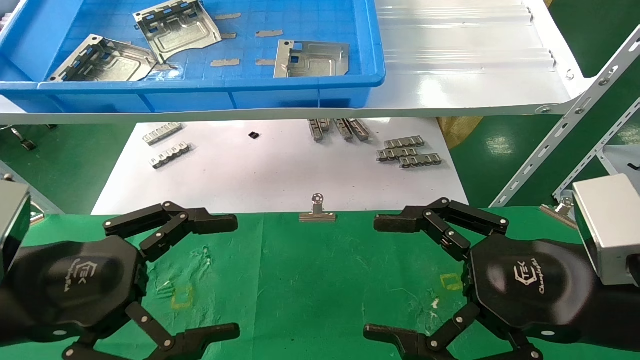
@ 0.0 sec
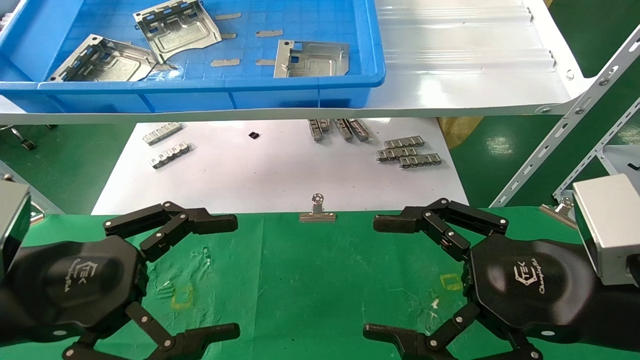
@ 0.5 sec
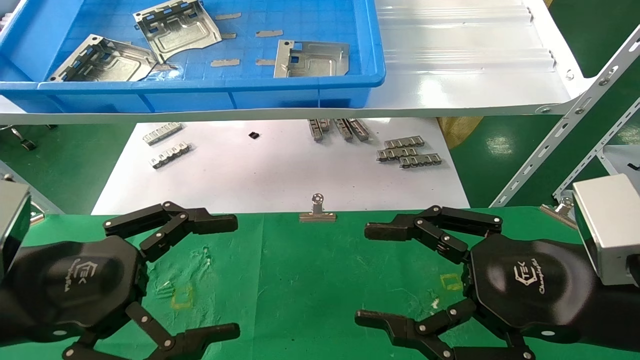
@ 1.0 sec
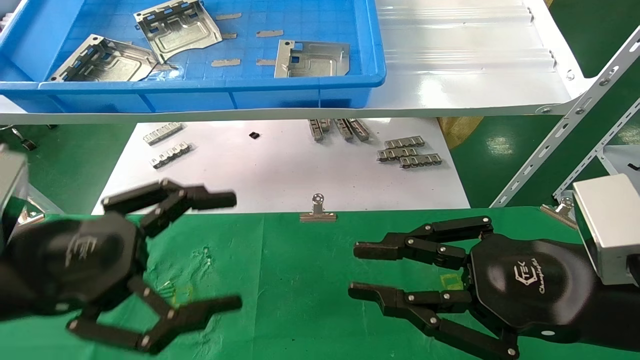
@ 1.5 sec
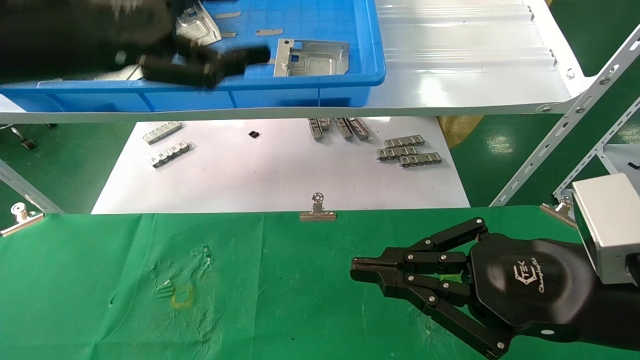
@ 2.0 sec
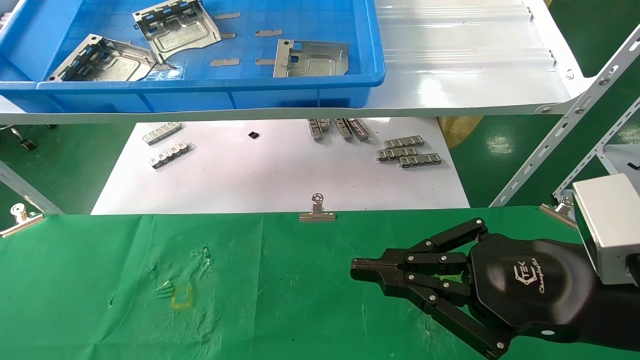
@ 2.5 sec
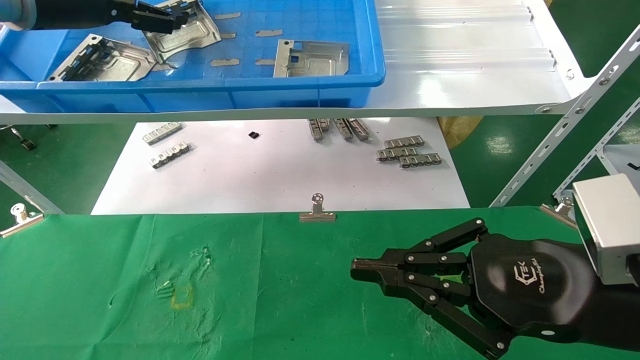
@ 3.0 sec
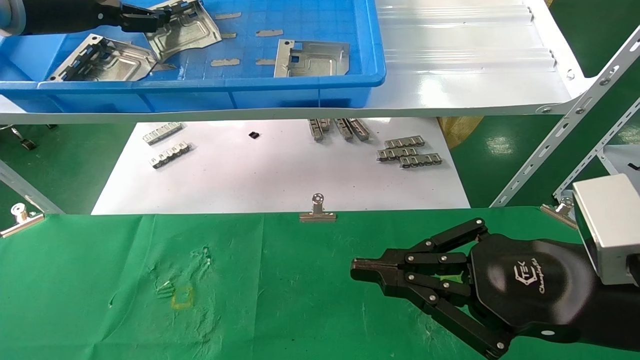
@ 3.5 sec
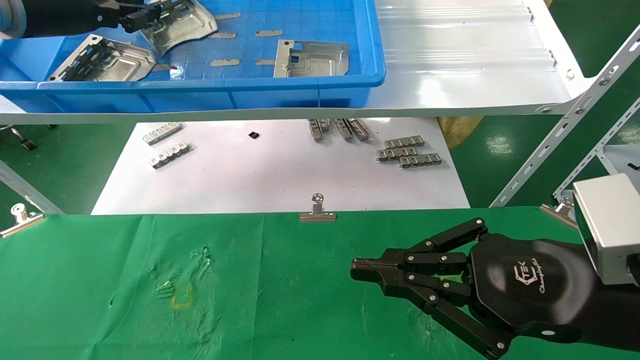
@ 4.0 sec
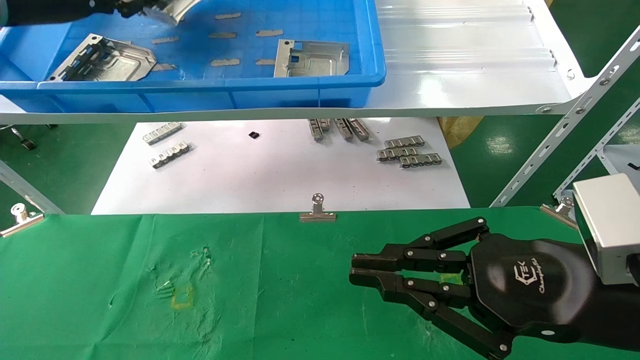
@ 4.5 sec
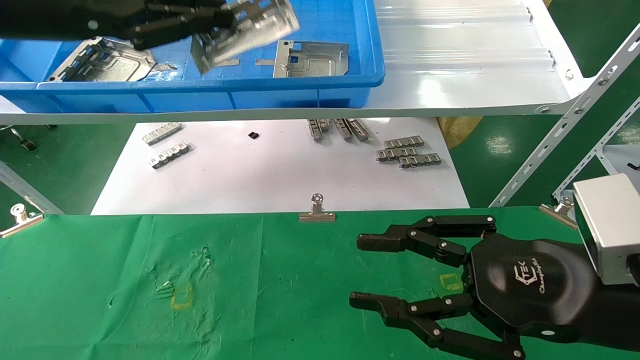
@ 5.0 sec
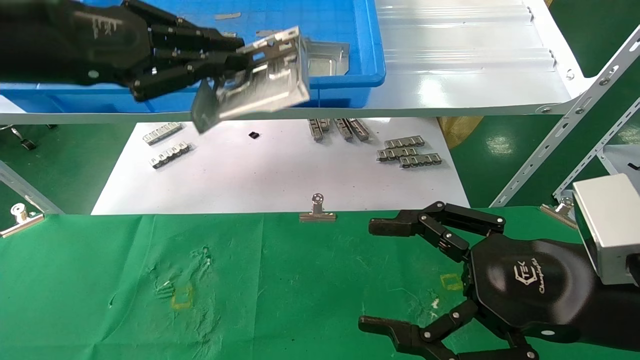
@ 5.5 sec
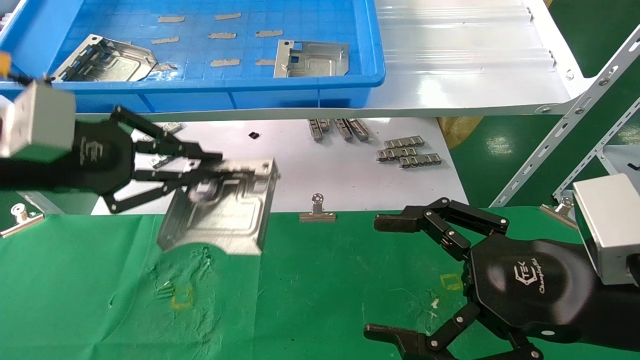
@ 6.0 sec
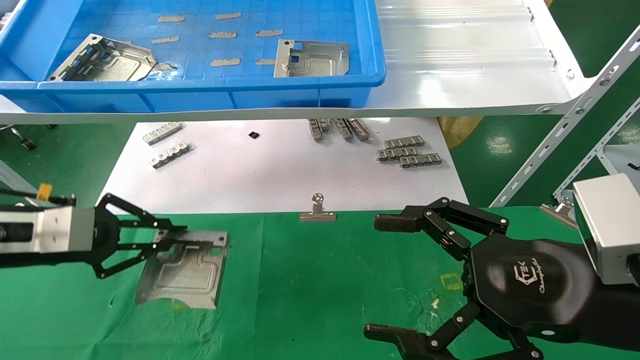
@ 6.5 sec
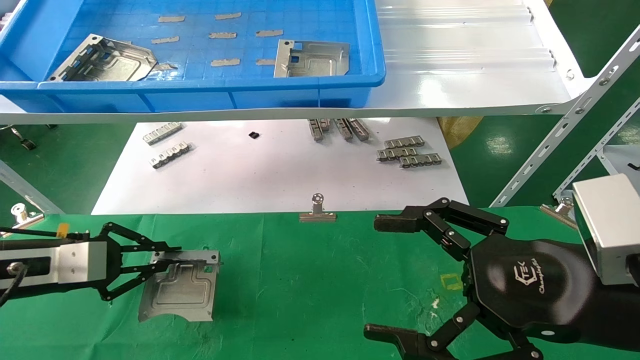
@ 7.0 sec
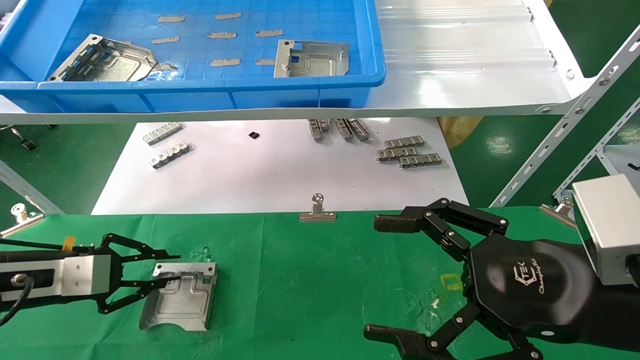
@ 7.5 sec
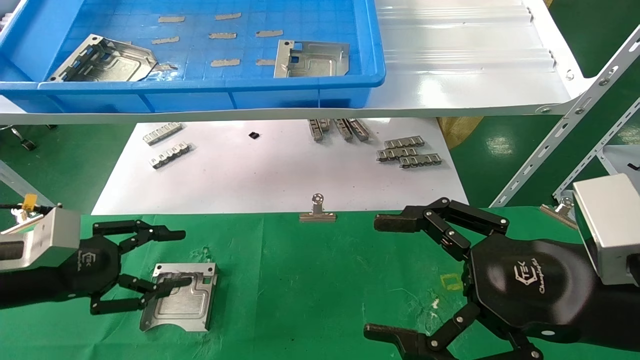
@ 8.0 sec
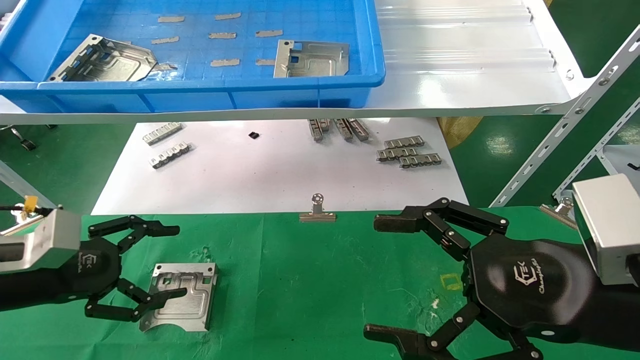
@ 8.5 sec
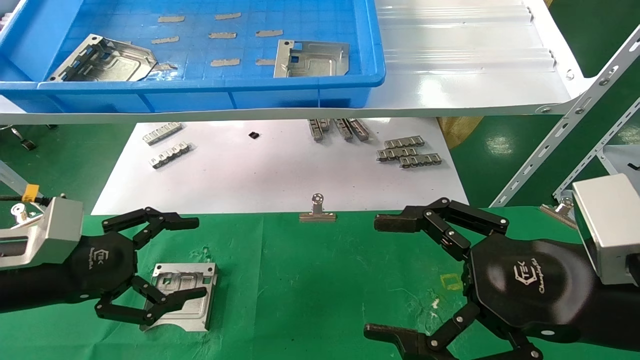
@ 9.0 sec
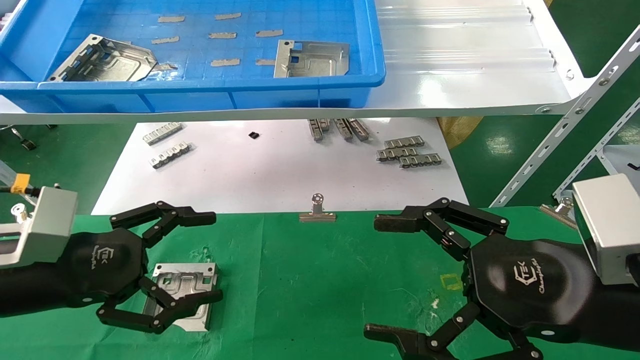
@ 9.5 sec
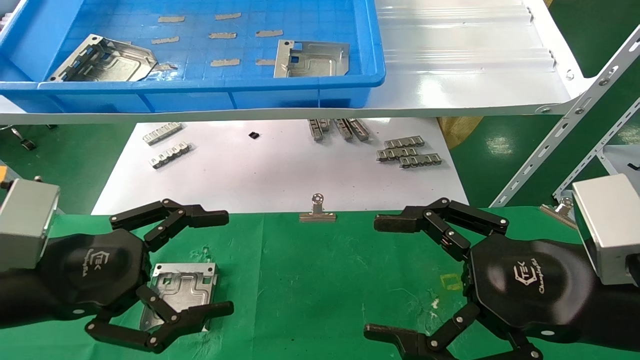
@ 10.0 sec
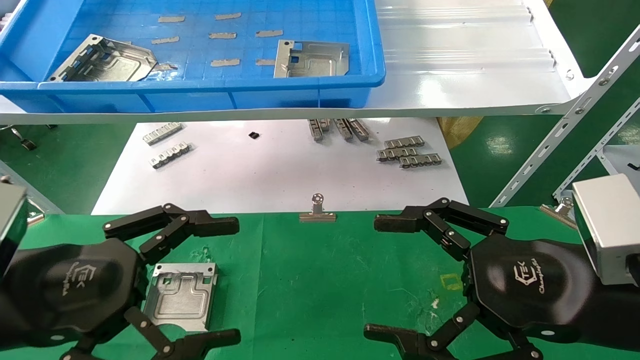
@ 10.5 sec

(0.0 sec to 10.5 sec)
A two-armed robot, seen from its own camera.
Task of the whole recording: use the mechanical arm to pick up the parts and place them on the table.
Step, 2.0 sec - 4.0 sec: Pick up the hard drive bracket from the feeding area.
Step, 4.5 sec - 7.5 sec: Place the hard drive bracket into the box.
0.0 sec - 2.0 sec: The right gripper closes. Meanwhile the left gripper travels upward and forward by about 20 cm.
2.0 sec - 4.0 sec: The left gripper moves forward, to the left and upward, about 15 cm, and closes up.
4.0 sec - 6.5 sec: The right gripper opens. Meanwhile the left gripper shifts about 25 cm downward and backward.
6.5 sec - 8.5 sec: The left gripper shifts by about 5 cm, and opens up.
8.5 sec - 10.5 sec: The left gripper shifts approximately 15 cm backward and to the right.

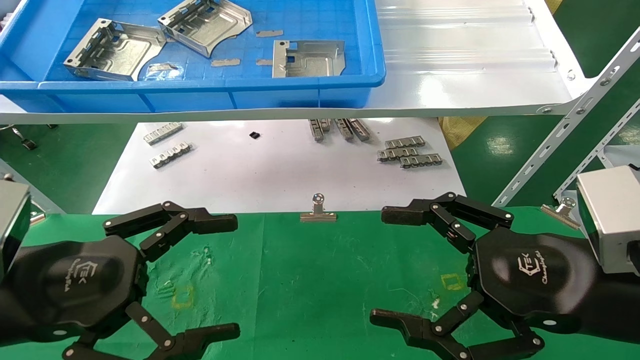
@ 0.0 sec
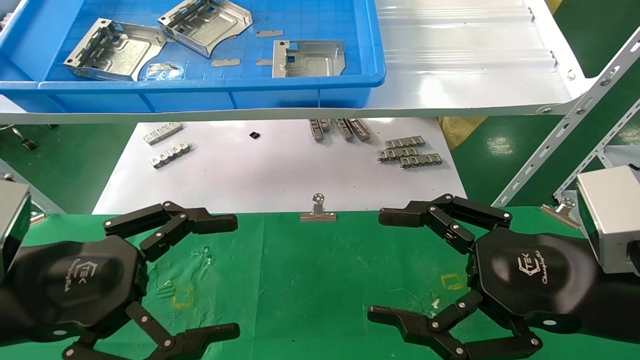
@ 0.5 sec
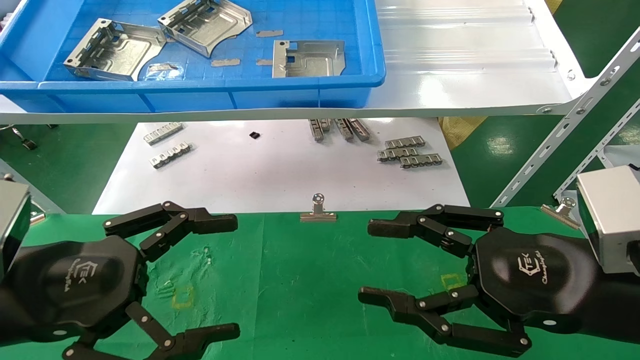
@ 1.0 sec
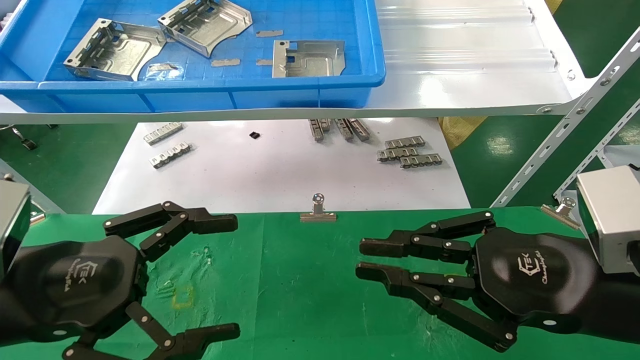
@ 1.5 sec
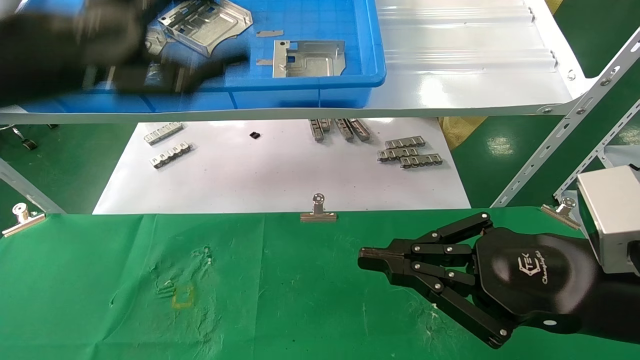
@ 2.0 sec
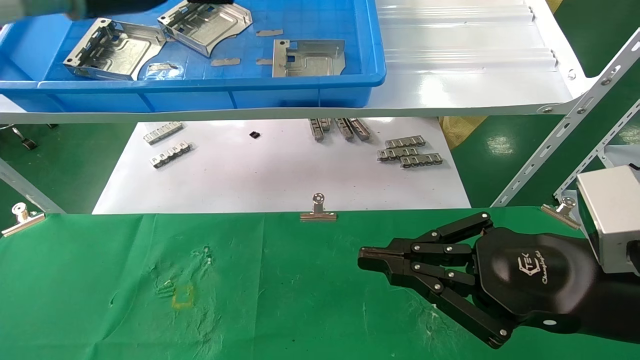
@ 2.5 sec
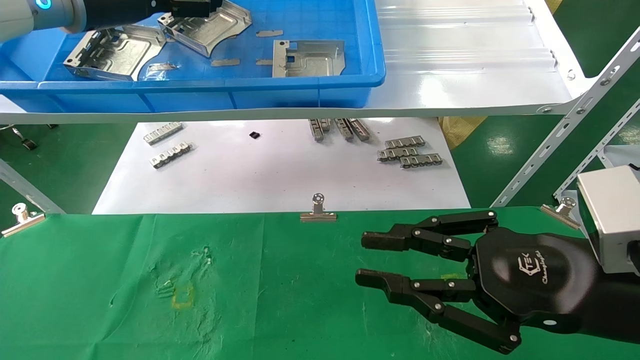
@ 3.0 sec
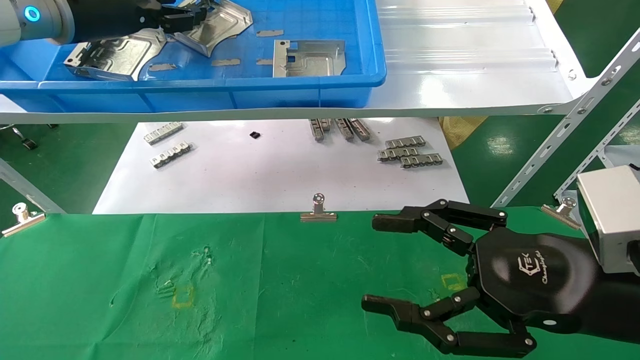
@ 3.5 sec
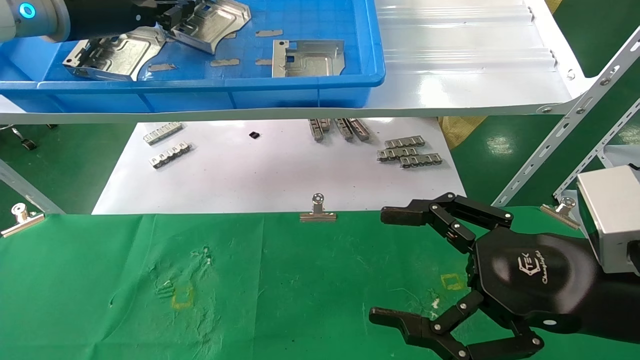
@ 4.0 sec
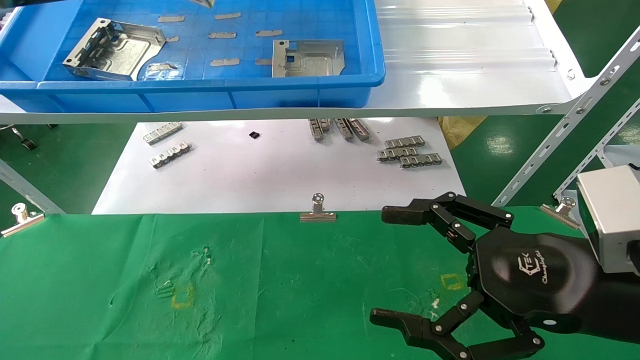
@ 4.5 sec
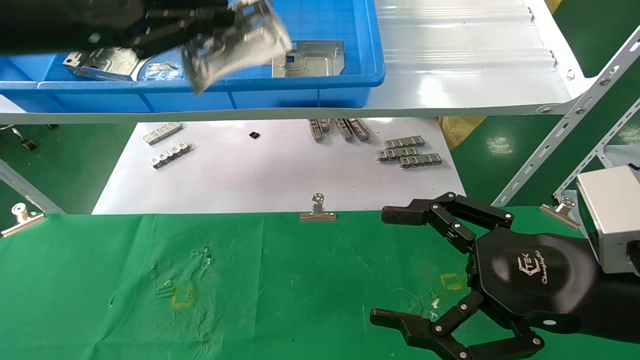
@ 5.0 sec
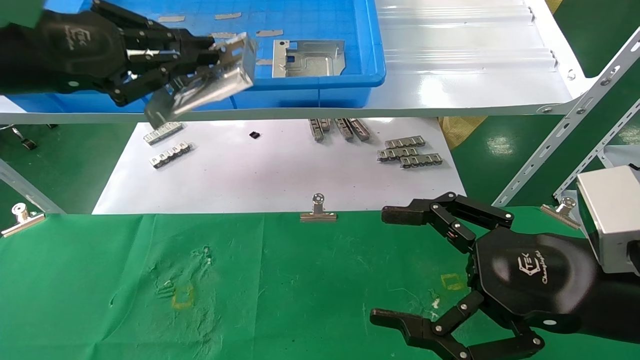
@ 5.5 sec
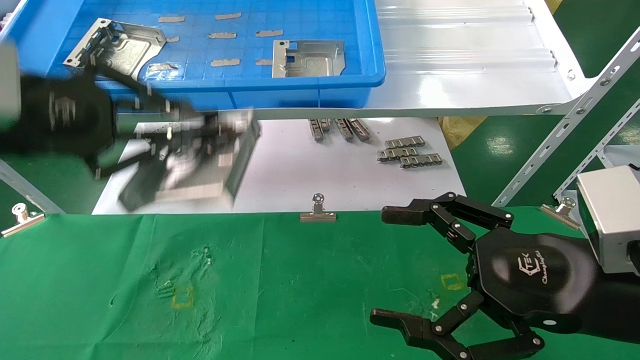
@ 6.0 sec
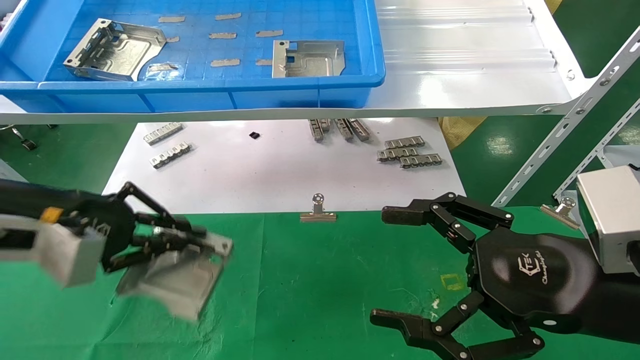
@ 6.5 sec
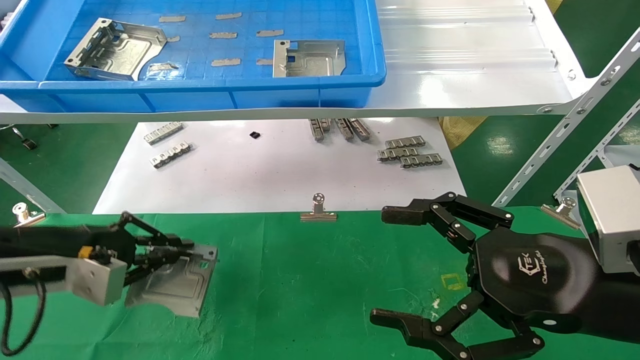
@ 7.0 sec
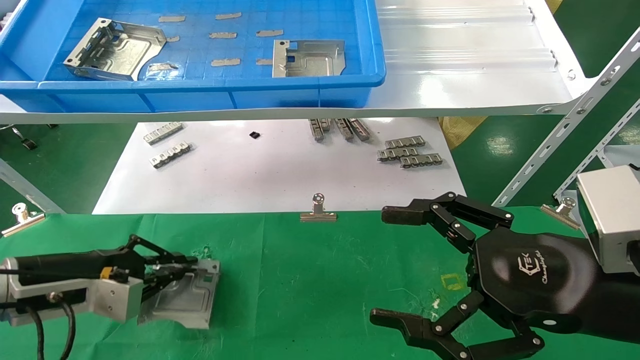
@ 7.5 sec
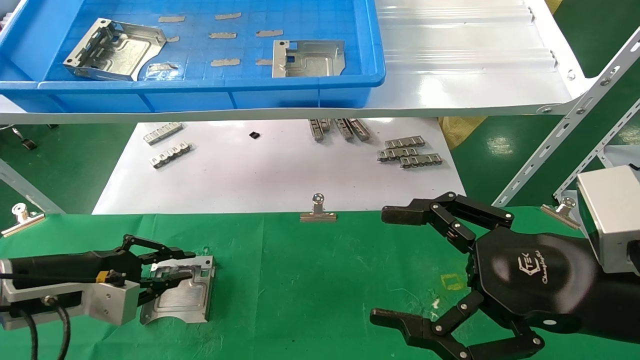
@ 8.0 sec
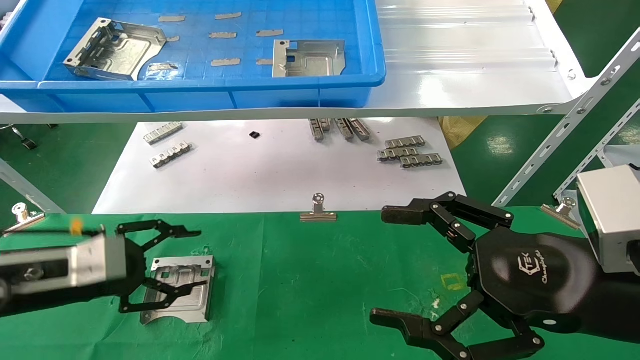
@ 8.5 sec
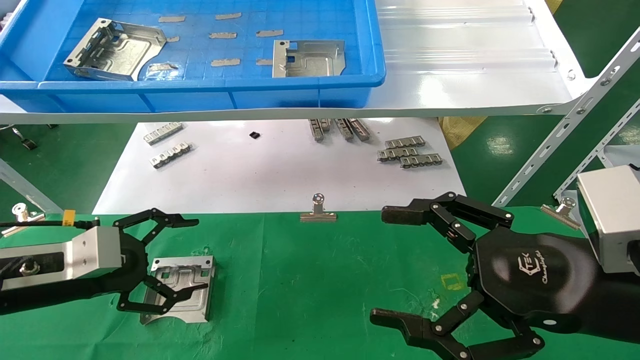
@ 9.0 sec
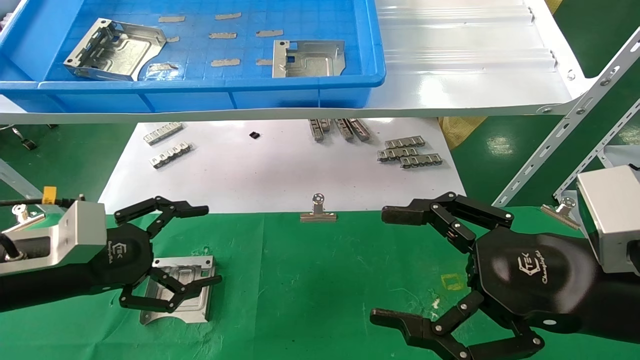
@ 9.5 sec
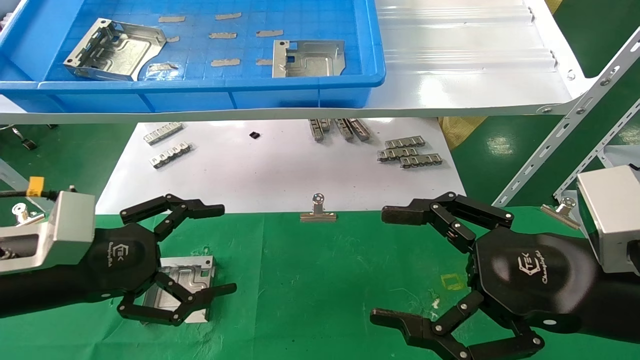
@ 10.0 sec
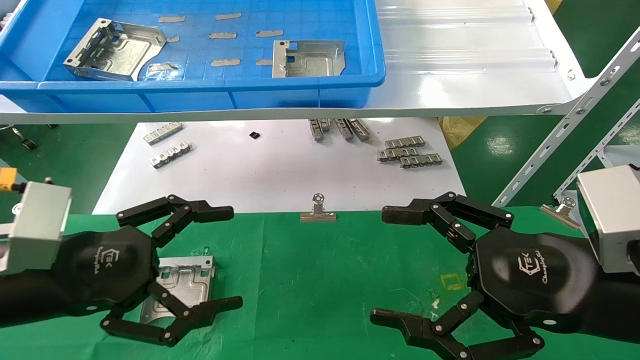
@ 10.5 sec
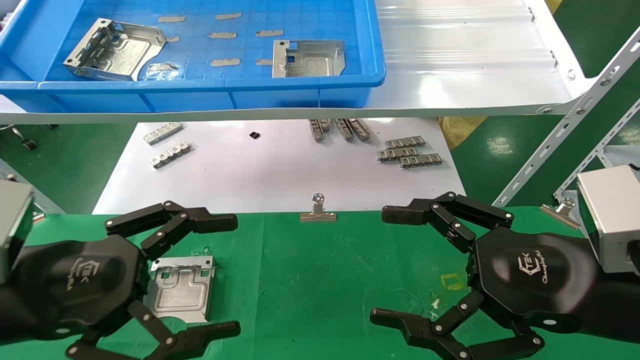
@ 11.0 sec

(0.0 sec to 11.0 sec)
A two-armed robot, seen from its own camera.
Task of the whole recording: use the mechanical arm to pick up the parts and place them on the table.
Step, 2.0 sec - 4.0 sec: Pick up the hard drive bracket from the feeding area.
Step, 4.5 sec - 8.0 sec: Place the hard drive bracket into the box.
0.0 sec - 2.0 sec: The left gripper heads upward and forward, covering roughly 20 cm. The right gripper closes up.
2.0 sec - 3.5 sec: The left gripper moves forward and upward, roughly 15 cm, and closes; the right gripper opens its fingers.
3.5 sec - 5.5 sec: The right gripper opens up; the left gripper shifts approximately 15 cm backward, and closes its fingers.
5.5 sec - 7.5 sec: The left gripper moves downward, roughly 25 cm.
7.5 sec - 9.0 sec: The left gripper opens up.
9.0 sec - 11.0 sec: The left gripper shifts some 10 cm backward, to the right and upward.
